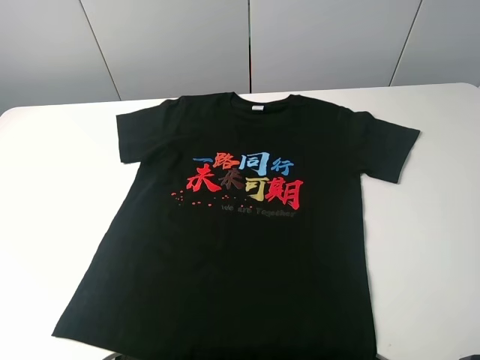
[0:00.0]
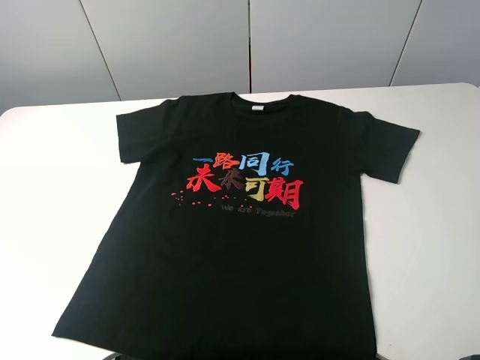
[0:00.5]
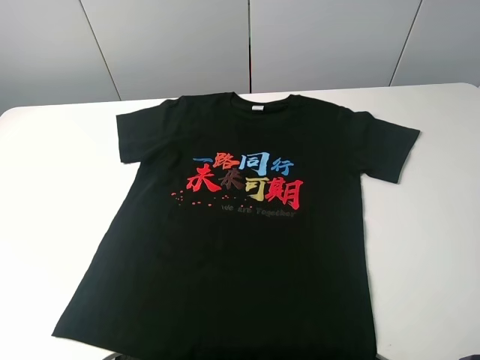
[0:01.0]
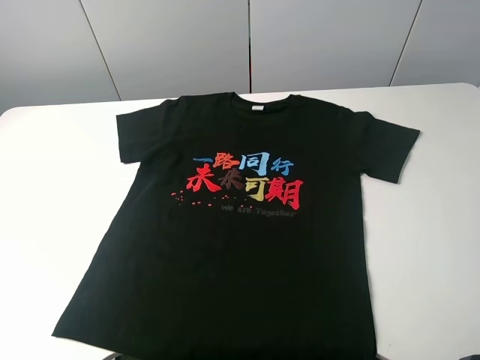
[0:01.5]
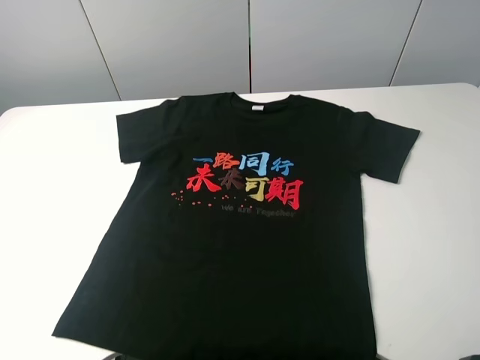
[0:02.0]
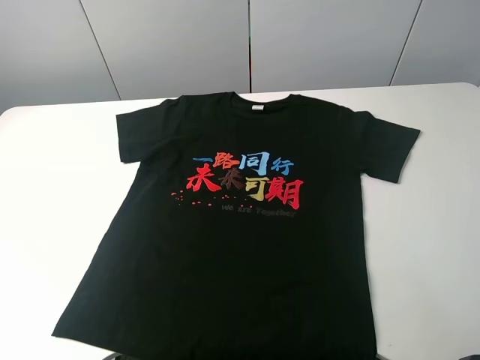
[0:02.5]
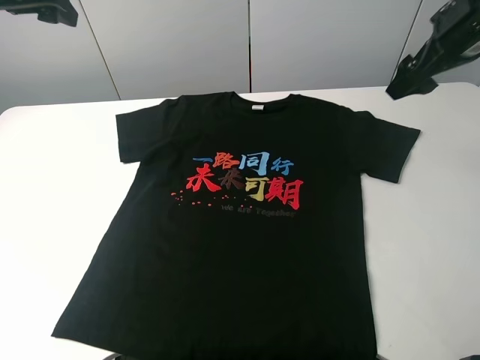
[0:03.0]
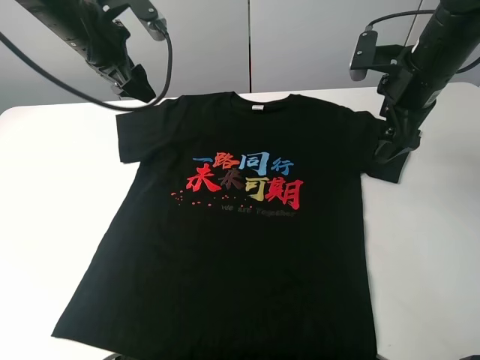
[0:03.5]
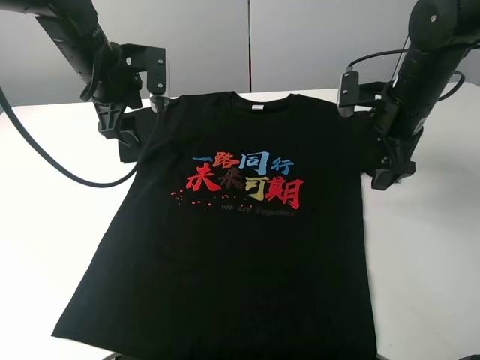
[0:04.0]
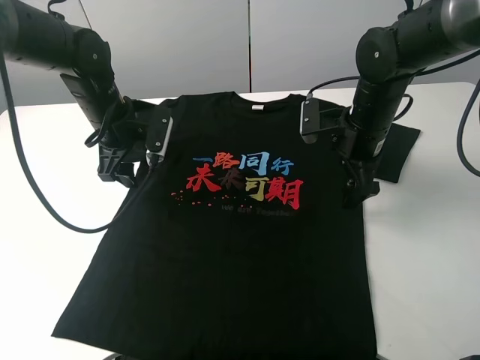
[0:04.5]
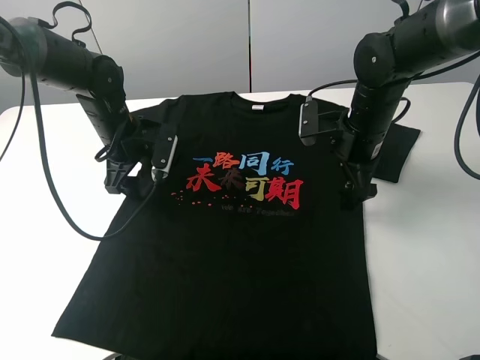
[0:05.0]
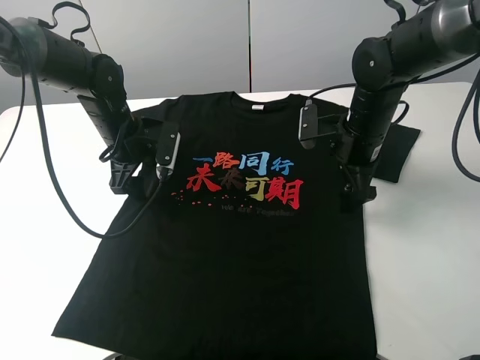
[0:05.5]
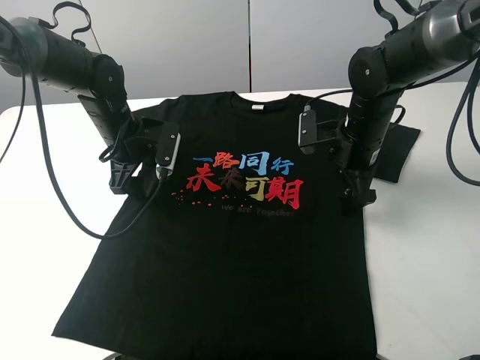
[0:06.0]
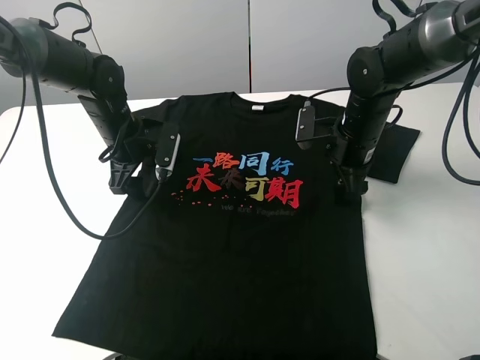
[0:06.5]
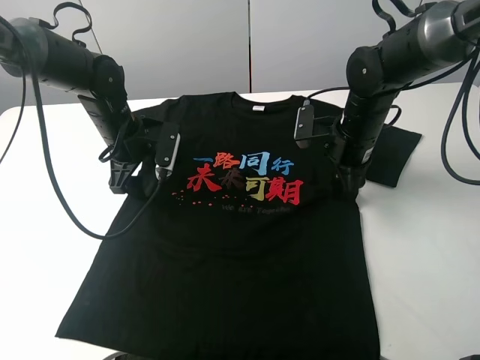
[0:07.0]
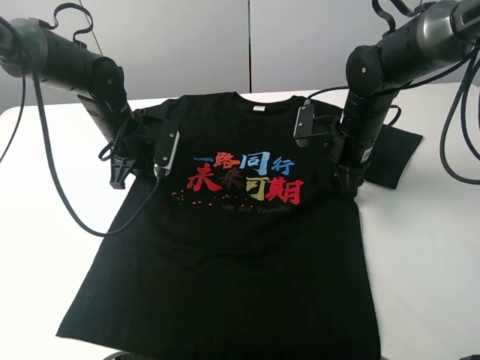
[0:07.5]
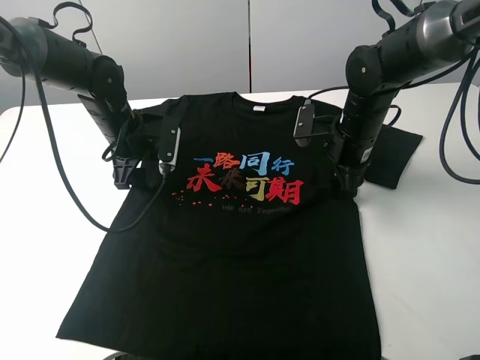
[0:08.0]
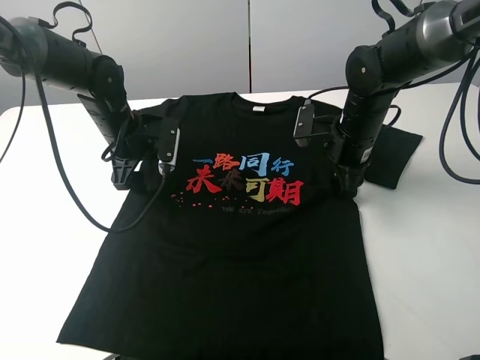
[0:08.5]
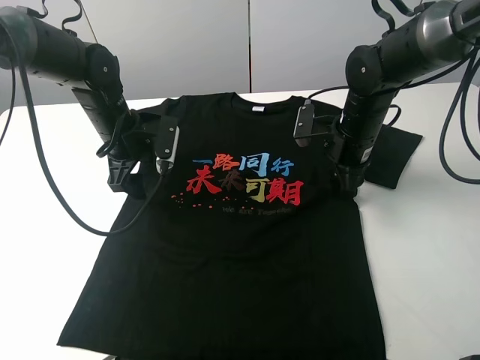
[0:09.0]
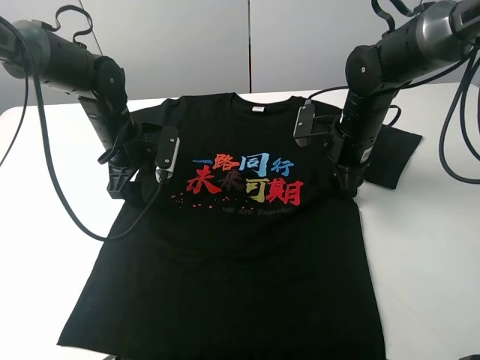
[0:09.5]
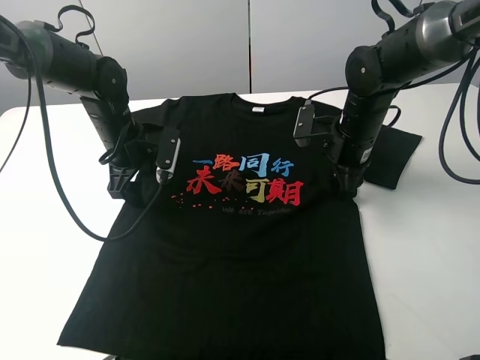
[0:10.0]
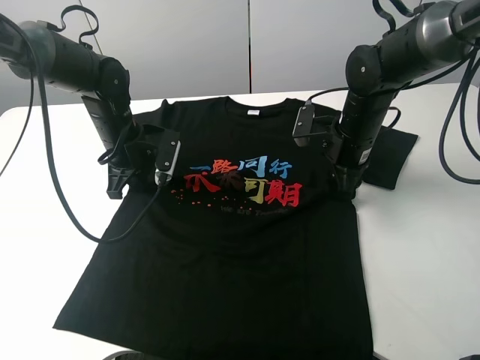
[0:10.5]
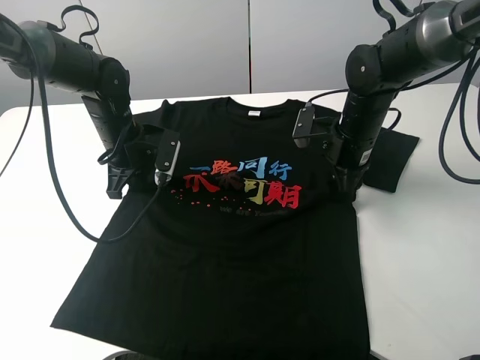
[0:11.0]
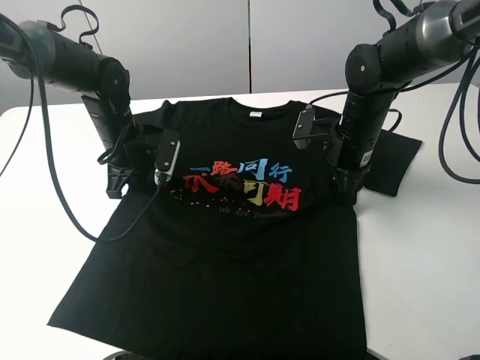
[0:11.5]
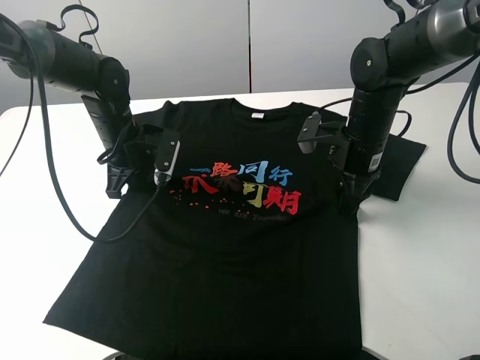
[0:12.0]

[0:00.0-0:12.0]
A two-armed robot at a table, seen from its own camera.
Task of the whole recording: fold the clothes on the table.
Step, 0:00.0 to 0:10.5: Lift the black T-shirt with the left gripper.
0:02.0 to 0:04.0: The left gripper goes approximately 40 cm forward and to the right; the right gripper heads forward and downward, covering approximately 35 cm.
0:04.0 to 0:06.0: The right gripper heads downward, covering roughly 5 cm. The left gripper goes some 10 cm downward.
0:06.0 to 0:08.0: The left gripper closes and opens again. Meanwhile the right gripper closes.
0:08.0 to 0:10.0: There are only small adjustments of the grippers.
0:10.0 to 0:12.0: The left gripper closes its fingers.

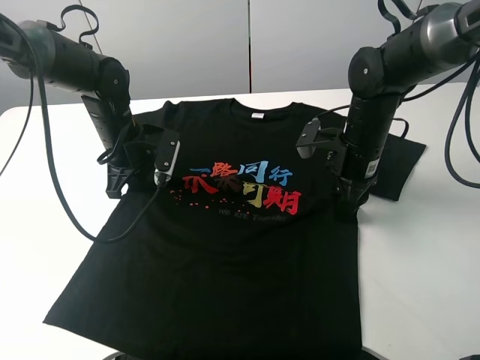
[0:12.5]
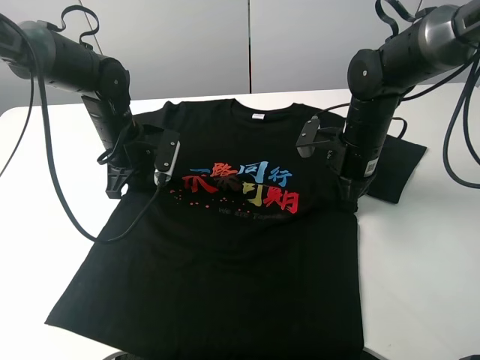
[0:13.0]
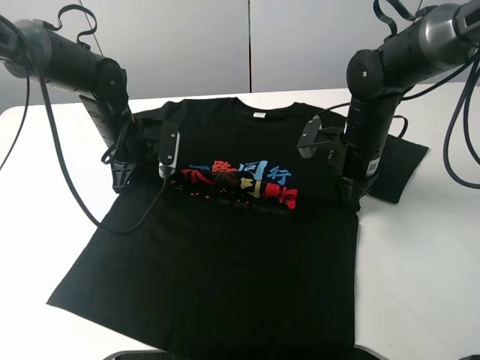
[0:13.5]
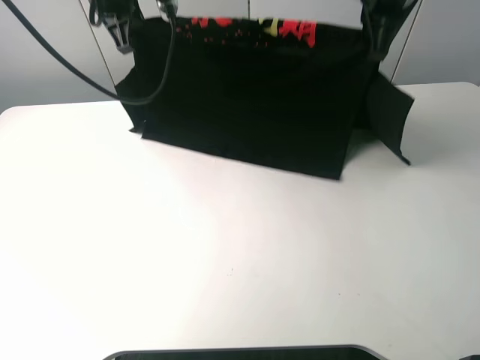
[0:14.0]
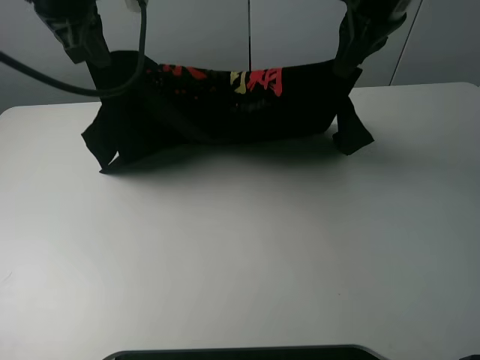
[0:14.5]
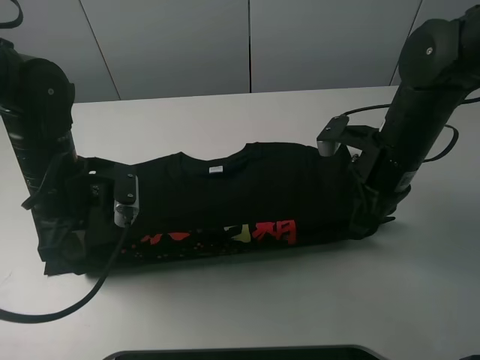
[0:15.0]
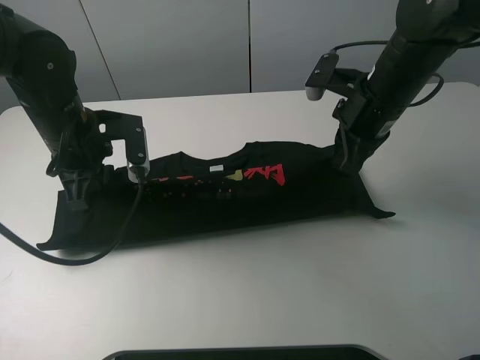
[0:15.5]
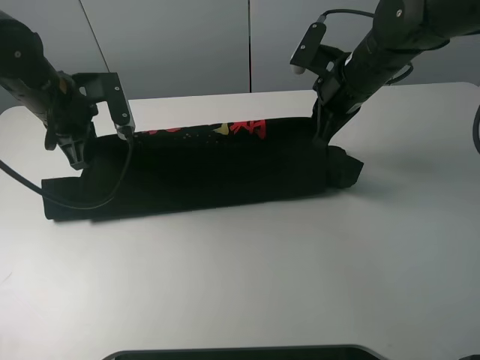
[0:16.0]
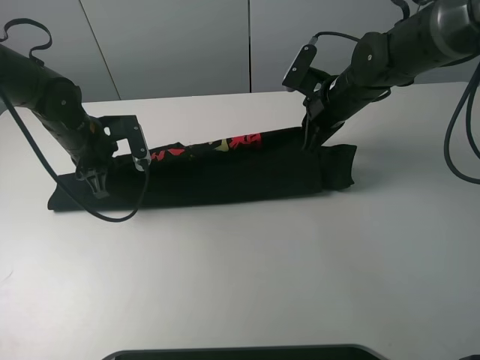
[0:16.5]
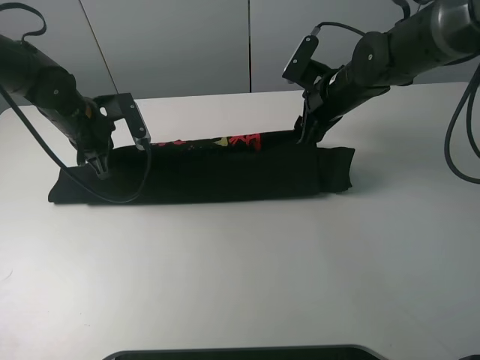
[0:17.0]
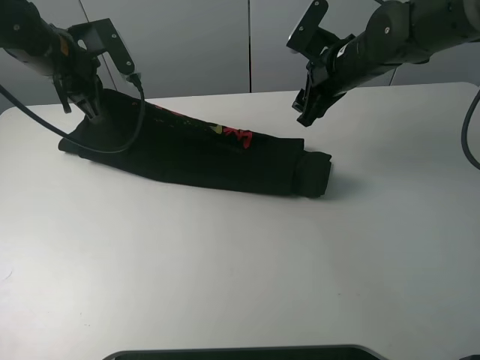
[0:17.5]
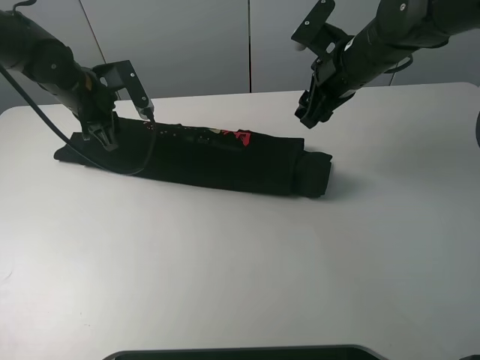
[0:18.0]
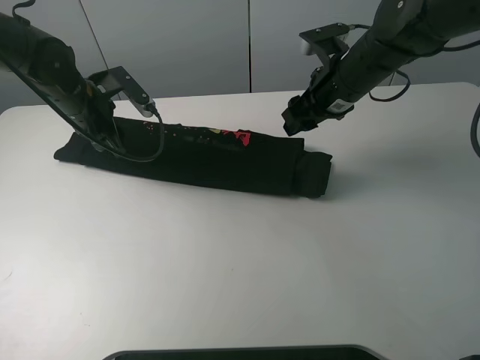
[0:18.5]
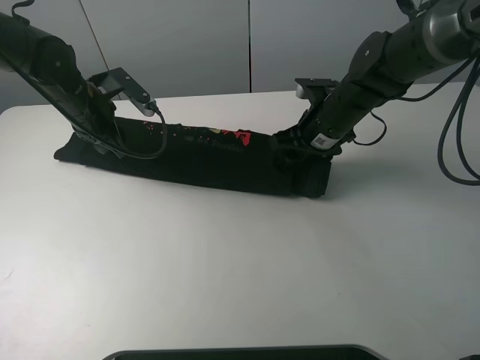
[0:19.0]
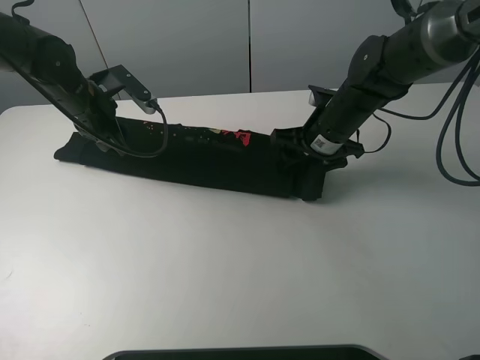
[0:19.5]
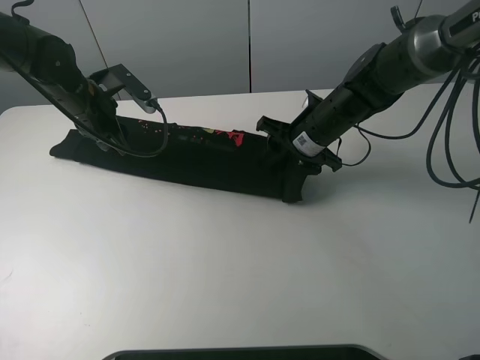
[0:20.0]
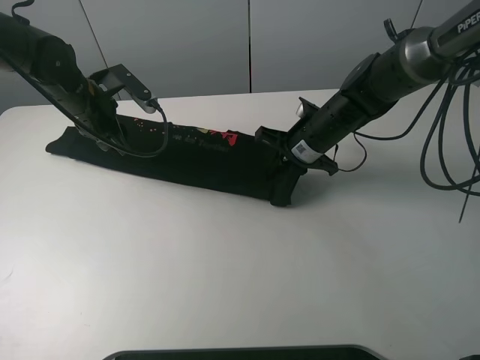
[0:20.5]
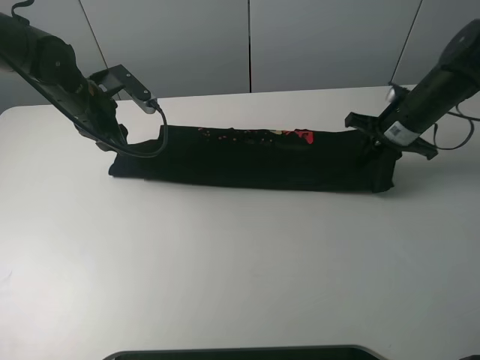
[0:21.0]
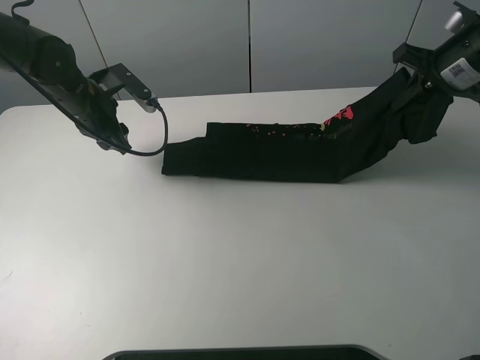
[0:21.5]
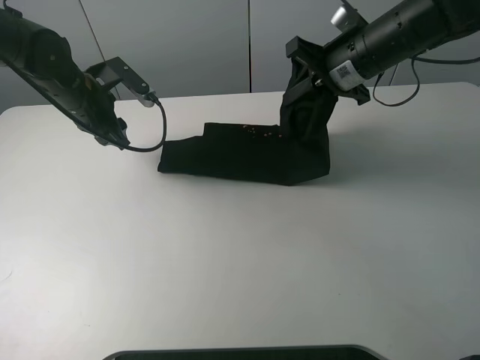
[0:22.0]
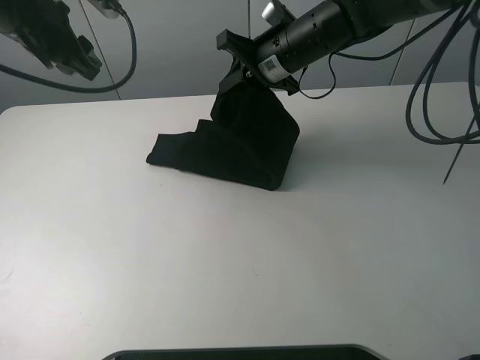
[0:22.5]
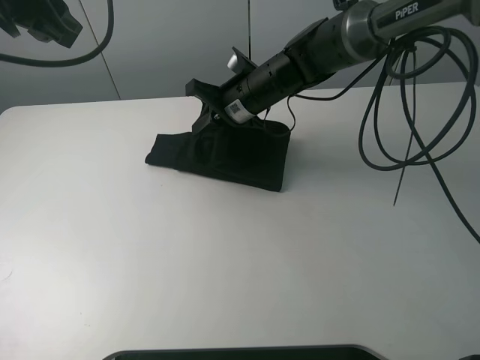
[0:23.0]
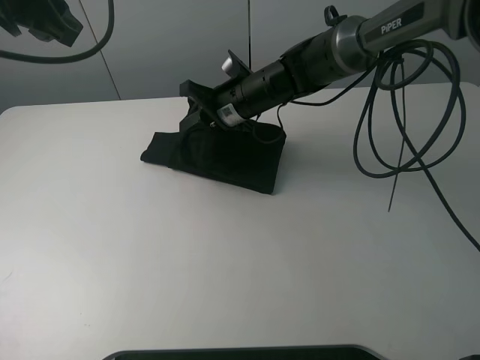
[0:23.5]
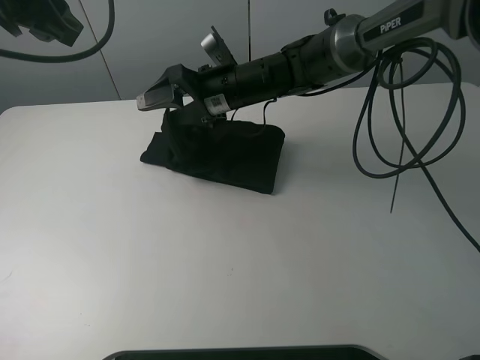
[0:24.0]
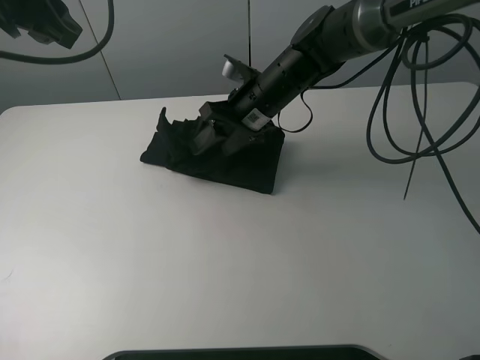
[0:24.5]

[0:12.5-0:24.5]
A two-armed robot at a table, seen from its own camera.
Task of the whole recording: fold the clothes on the table.
Step, 0:12.5 to 0:18.5: Fold the black T-shirt downward with the left gripper.
Step, 0:19.0 to 0:20.0: Grasp the black T-shirt with the right gripper.
0:12.5 to 0:14.5: Both grippers travel together upward, some 20 cm. The right gripper closes.
0:14.5 to 0:16.5: The right gripper swings up and down, some 15 cm each way, with 2 reversals. The left gripper shifts roughly 20 cm downward.
0:16.5 to 0:18.5: The right gripper changes place by some 5 cm, and opens its fingers, while the left gripper opens up.
0:18.5 to 0:20.5: The right gripper heads downward, covering roughly 10 cm, and closes.
0:20.5 to 0:22.5: Both grippers travel together upward, roughly 15 cm. The right gripper goes to the right and returns, approximately 15 cm each way.
0:22.5 to 0:24.5: The right gripper travels downward by approximately 5 cm, and opens its fingers.

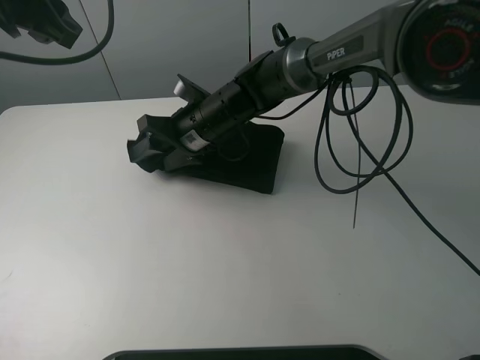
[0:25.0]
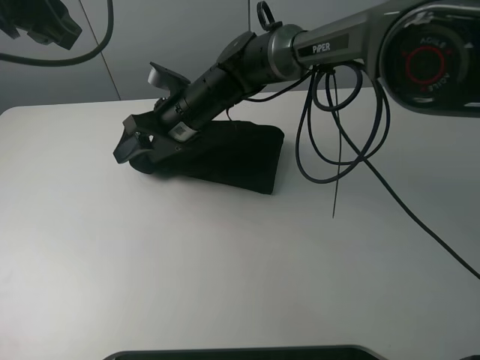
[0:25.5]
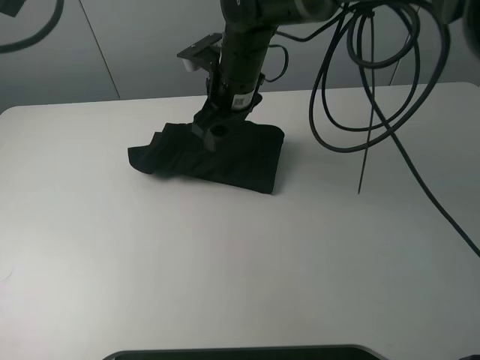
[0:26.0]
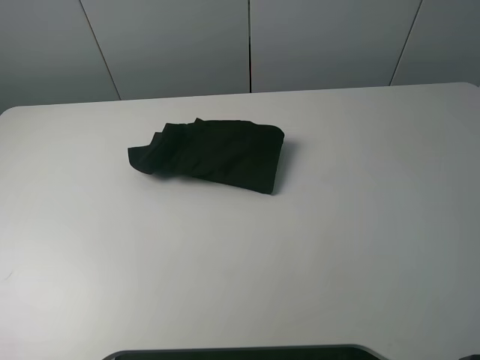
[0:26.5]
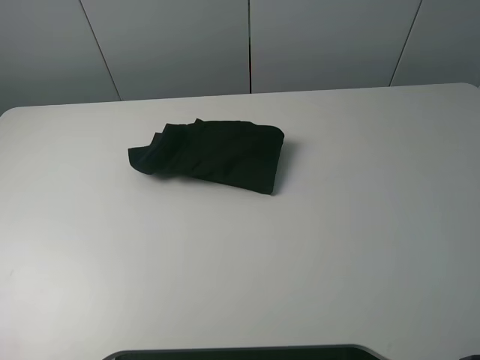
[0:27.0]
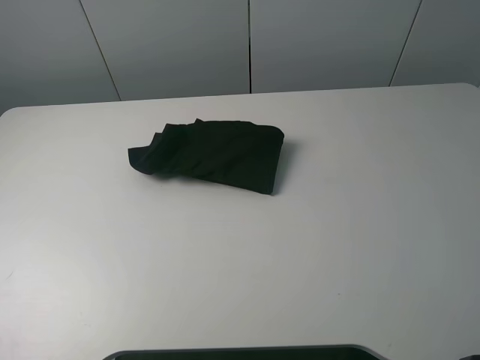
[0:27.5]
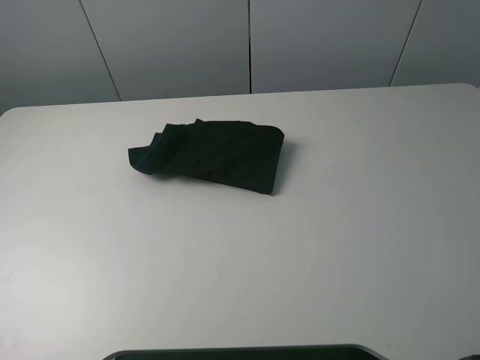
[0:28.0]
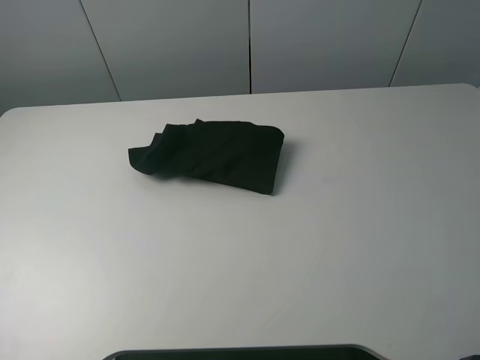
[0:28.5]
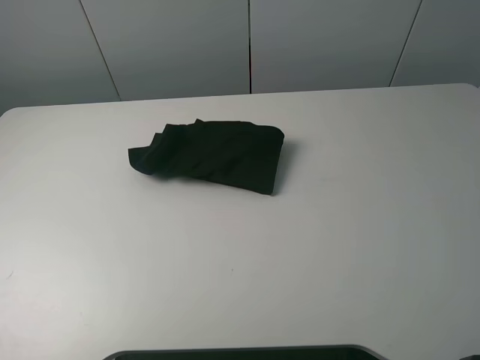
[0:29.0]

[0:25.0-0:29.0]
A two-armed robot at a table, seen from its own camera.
Task of the whole recording: fold the clothes on the table.
0:25.0 to 0:27.0: The left gripper shifts about 40 cm backward and to the left, while the right gripper heads upward, to the right and backward, covering roughly 60 cm.
